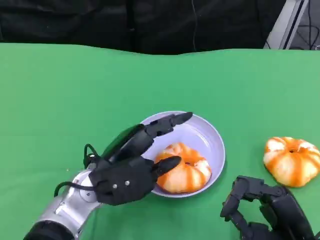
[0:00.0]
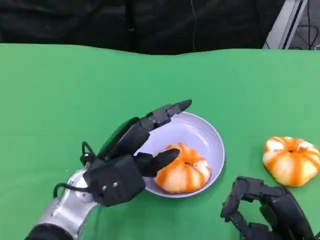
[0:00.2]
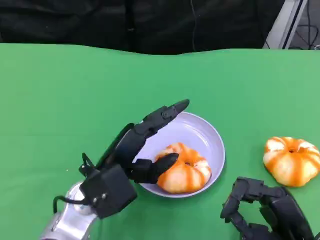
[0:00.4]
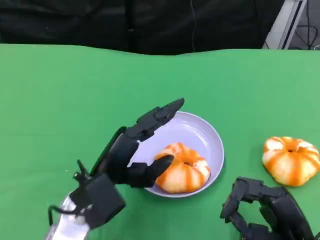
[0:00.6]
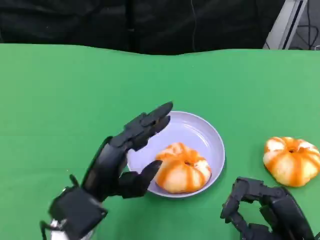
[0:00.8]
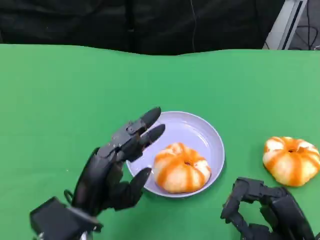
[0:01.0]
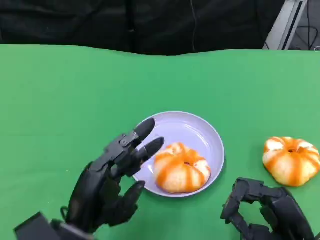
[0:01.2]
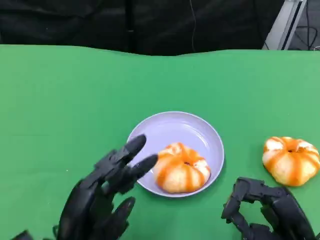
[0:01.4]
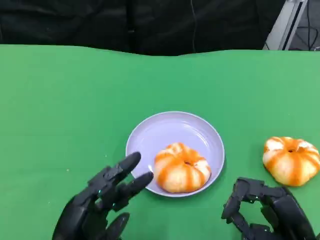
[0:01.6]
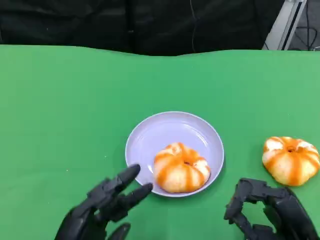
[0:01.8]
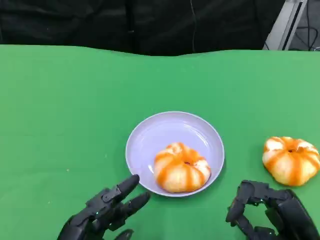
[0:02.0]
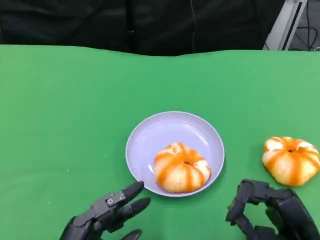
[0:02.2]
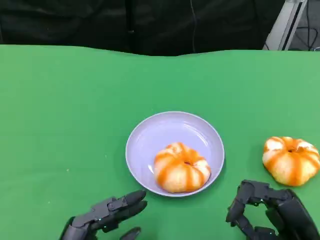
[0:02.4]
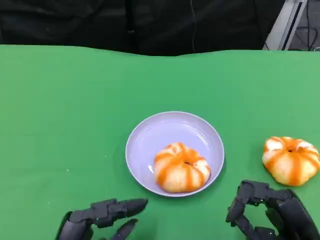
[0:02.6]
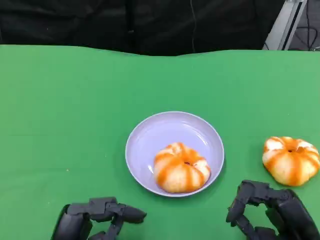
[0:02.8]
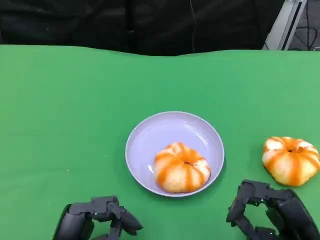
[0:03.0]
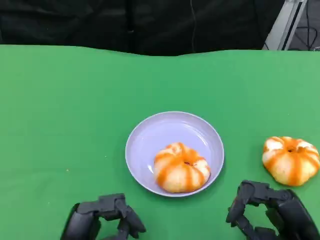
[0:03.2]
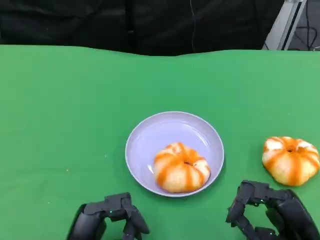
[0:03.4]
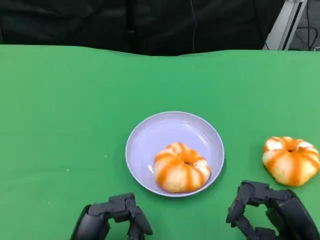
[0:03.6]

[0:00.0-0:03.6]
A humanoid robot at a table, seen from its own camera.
Task of the whole recording: Grasp the bread from the table and place it into the plate.
0:00.0 to 0:01.8: The left hand heads backward and to the left, covering about 15 cm.
0:01.8 to 0:03.6: The hands stay close to where they were, moving slightly.

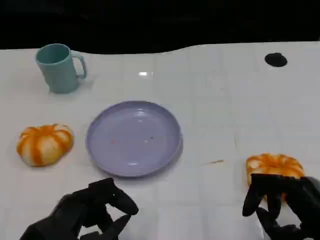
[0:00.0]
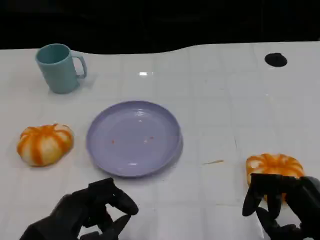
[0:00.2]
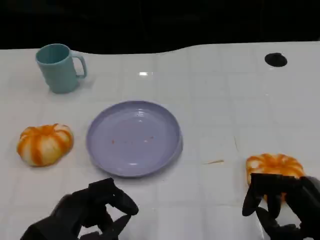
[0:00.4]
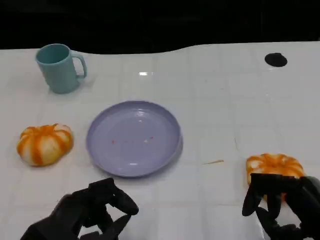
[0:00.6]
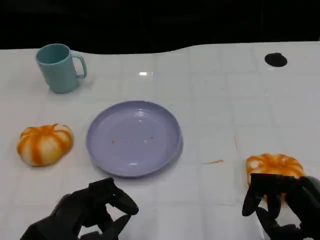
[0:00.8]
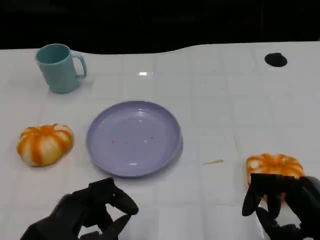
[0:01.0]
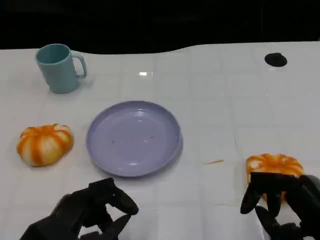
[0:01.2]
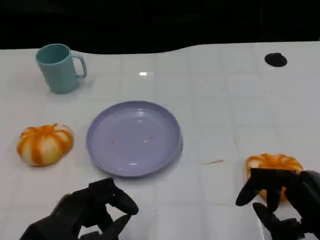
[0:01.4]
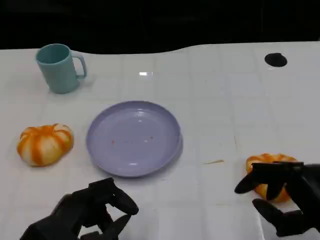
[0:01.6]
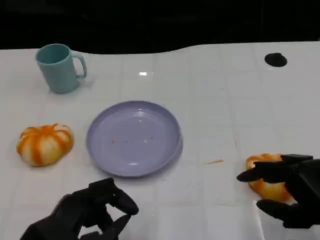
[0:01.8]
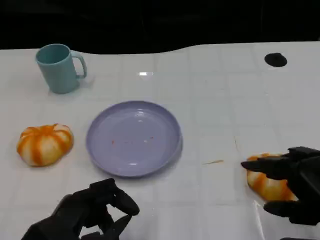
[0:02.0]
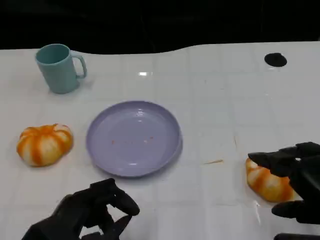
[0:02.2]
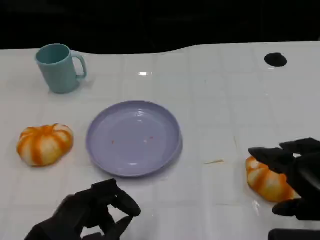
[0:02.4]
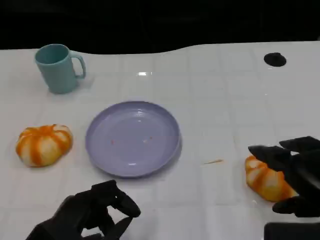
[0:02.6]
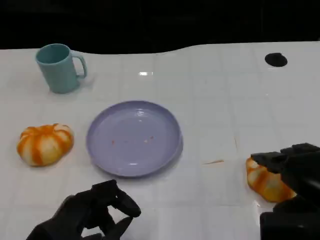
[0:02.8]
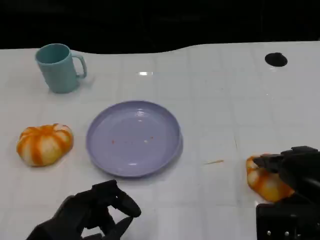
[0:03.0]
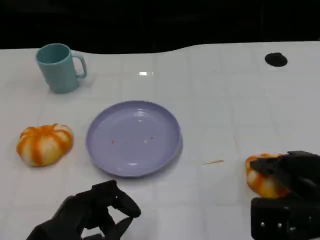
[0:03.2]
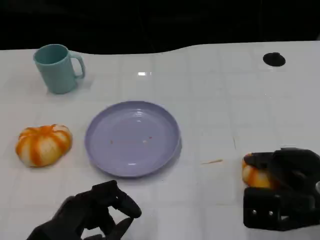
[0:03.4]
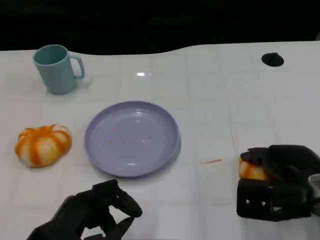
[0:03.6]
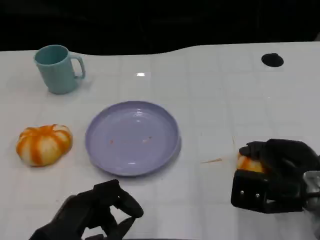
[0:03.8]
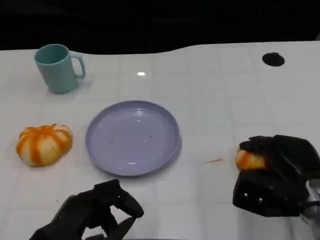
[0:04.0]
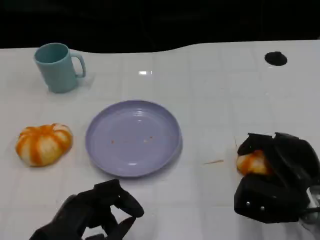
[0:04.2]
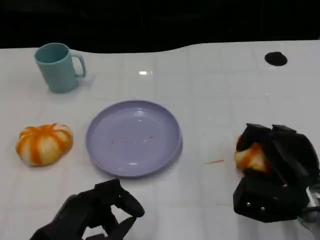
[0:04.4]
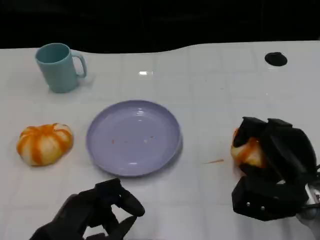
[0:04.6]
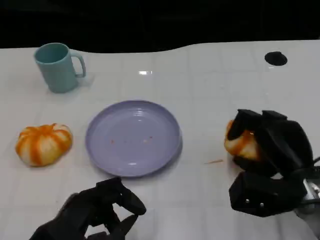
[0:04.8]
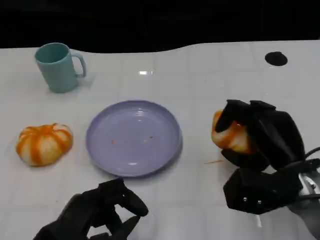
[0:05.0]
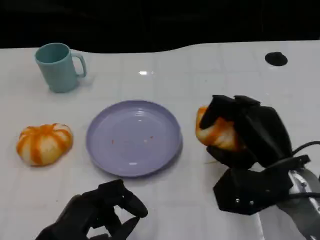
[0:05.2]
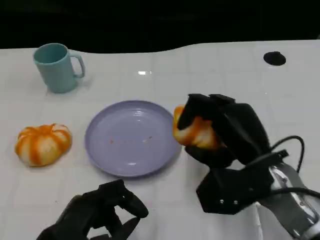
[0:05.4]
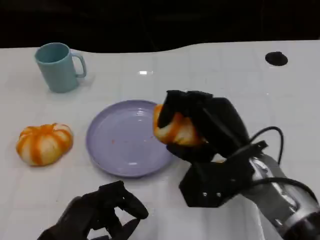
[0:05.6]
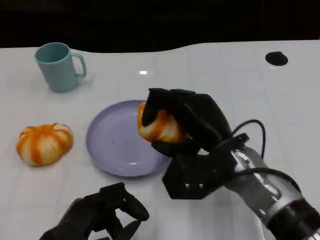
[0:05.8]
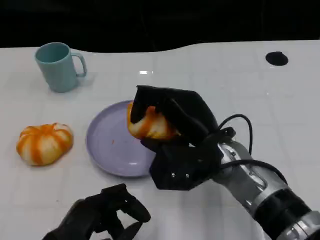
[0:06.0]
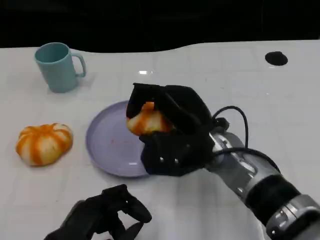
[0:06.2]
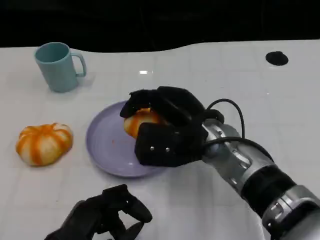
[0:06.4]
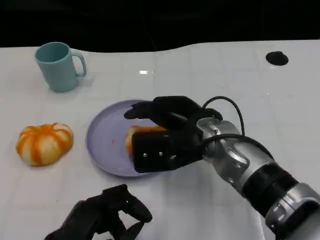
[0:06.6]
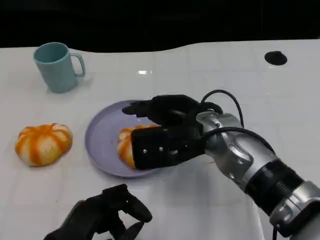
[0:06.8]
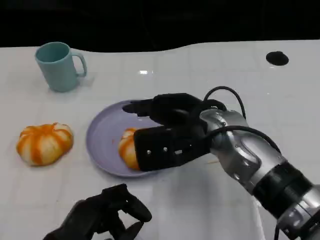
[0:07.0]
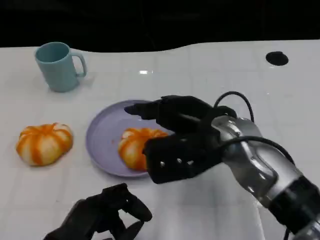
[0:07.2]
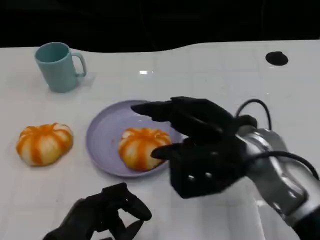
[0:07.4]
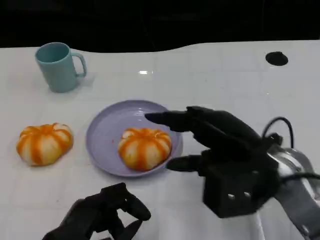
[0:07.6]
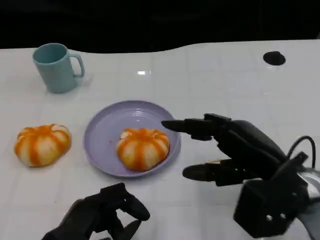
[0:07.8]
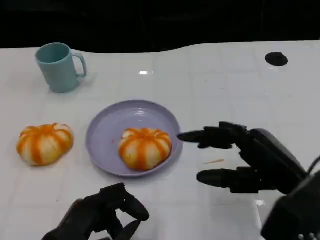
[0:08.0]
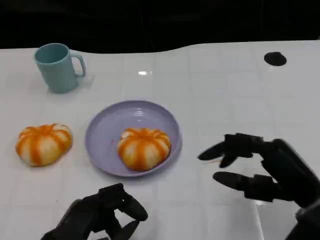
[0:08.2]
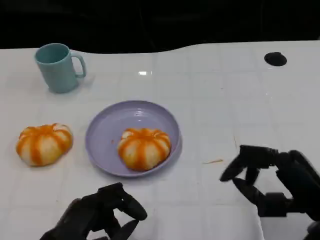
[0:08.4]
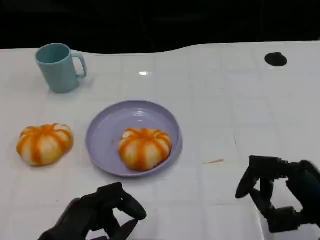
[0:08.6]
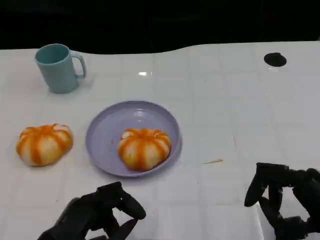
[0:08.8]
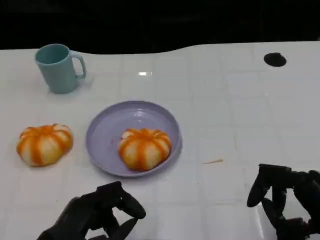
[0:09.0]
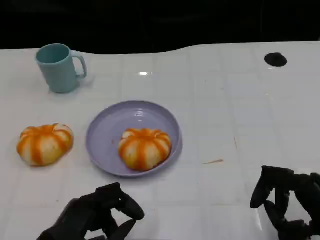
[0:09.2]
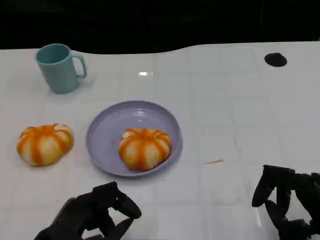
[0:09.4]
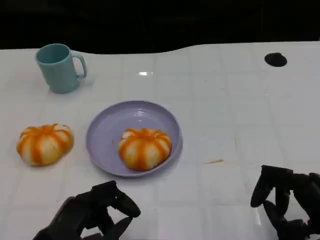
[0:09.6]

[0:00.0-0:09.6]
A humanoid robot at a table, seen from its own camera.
Task of the whole recording: Grasp the bread from the table and place it into the plate.
0:00.0 to 0:01.6: The hands move only a little.
0:01.6 to 0:03.2: The right hand is displaced forward by approximately 5 cm.
0:04.8 to 0:06.4: The right hand heads to the left, covering some 15 cm.
0:06.4 to 0:08.0: The right hand heads to the right and backward, covering about 15 cm.
0:08.0 to 0:09.6: The right hand goes about 5 cm backward.

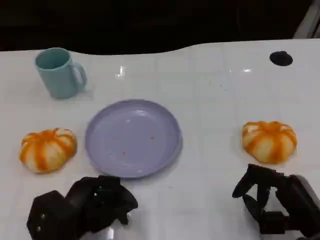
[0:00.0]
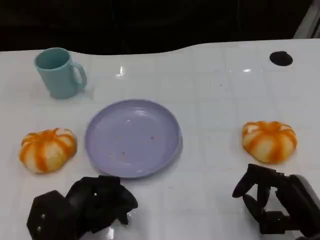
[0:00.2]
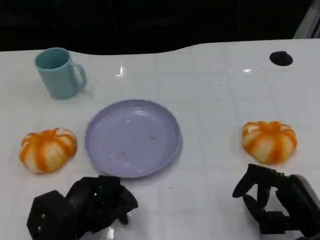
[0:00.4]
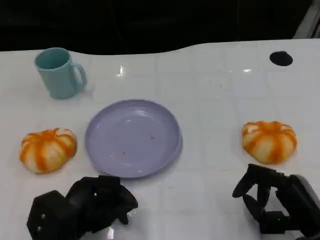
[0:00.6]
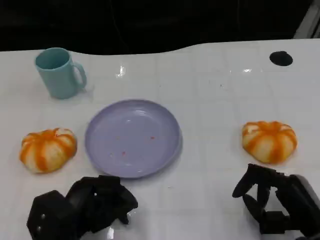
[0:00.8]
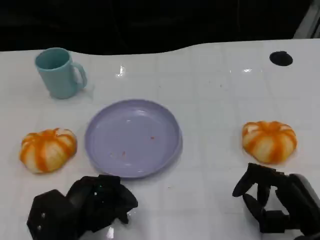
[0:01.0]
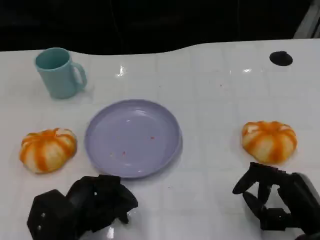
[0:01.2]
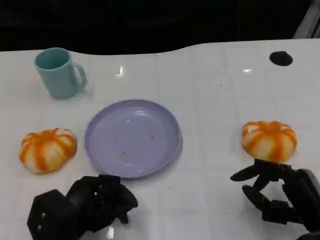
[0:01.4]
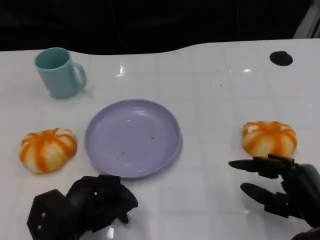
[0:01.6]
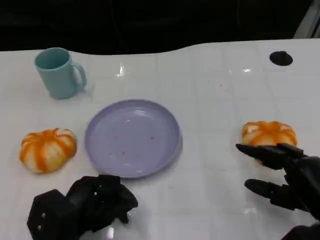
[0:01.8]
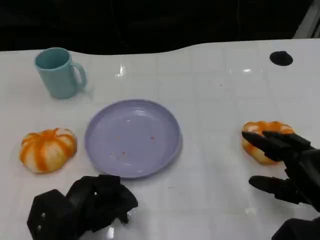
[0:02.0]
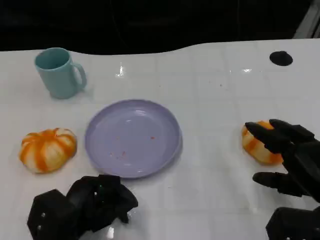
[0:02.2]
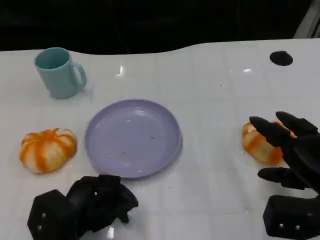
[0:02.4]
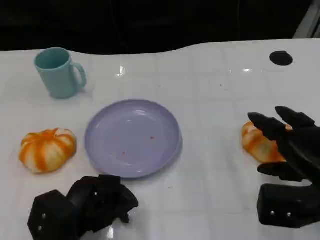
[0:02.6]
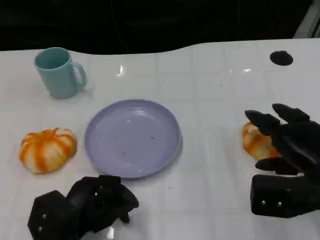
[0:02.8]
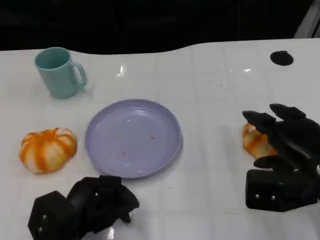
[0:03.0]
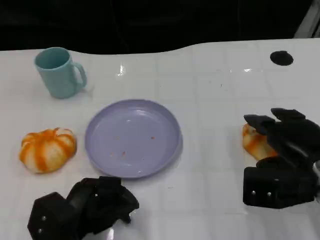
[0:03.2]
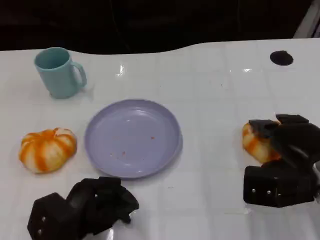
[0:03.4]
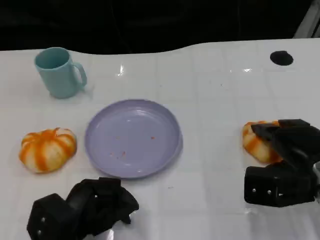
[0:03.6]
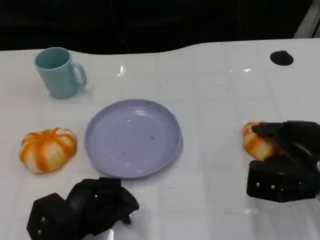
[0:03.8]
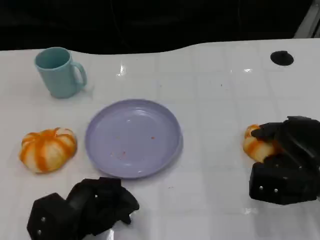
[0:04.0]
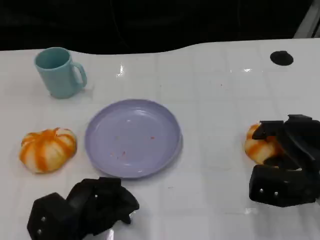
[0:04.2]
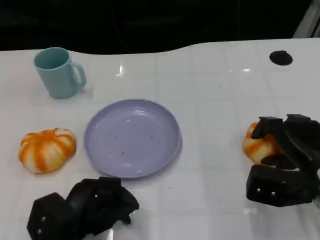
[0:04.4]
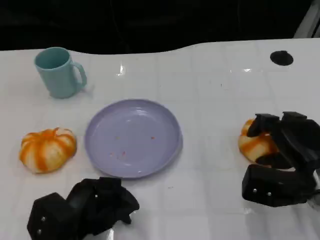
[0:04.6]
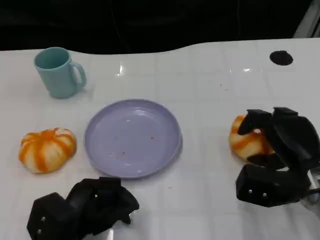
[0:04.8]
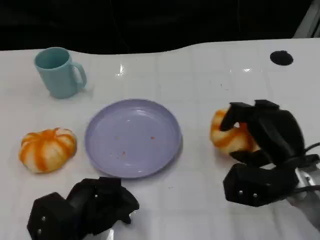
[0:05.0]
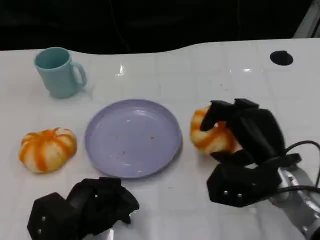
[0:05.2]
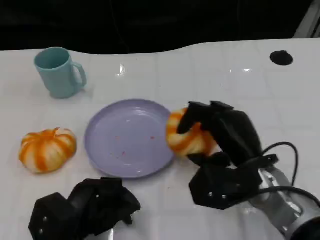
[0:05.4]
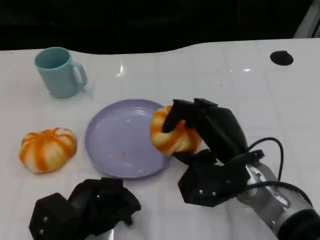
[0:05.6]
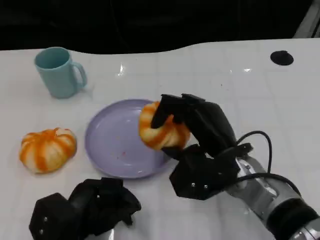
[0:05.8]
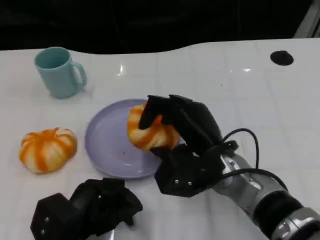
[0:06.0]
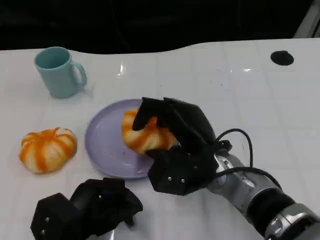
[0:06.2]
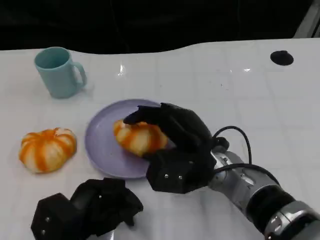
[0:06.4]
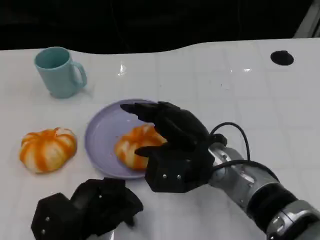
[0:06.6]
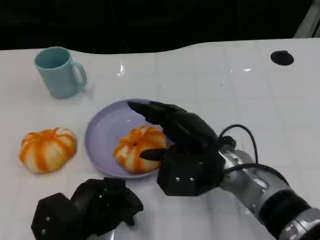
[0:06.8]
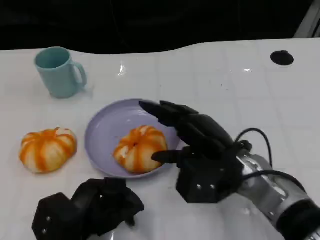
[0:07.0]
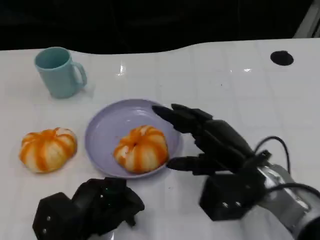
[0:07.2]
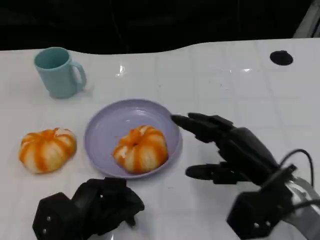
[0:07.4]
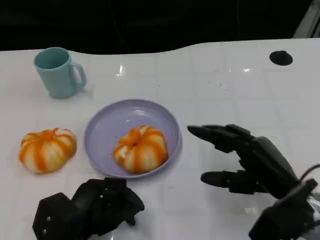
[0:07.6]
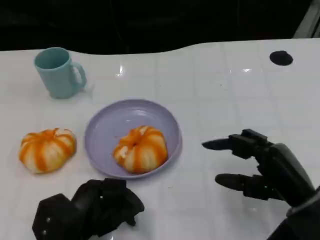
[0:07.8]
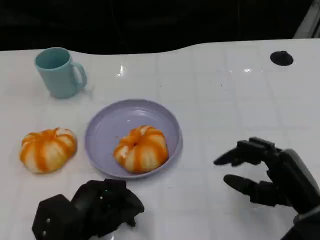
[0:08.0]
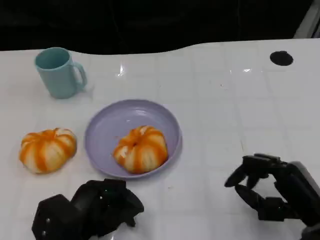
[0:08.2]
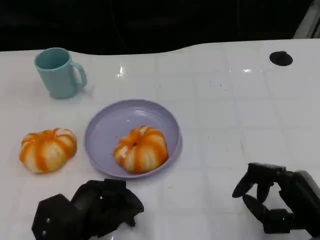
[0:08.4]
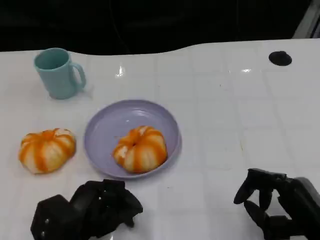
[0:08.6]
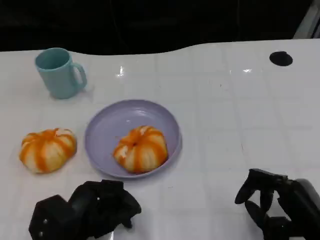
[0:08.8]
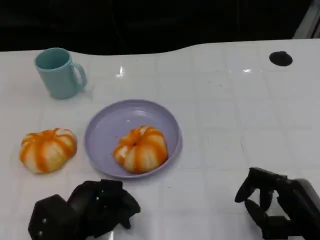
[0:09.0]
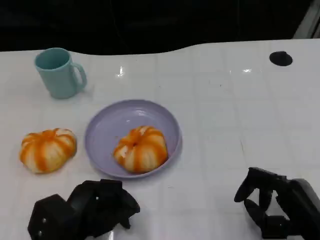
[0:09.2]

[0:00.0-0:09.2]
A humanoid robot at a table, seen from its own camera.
Task of the whole recording: Grasp the bread from the table and place it into the plate.
0:00.0 to 0:01.6: The hands stay close to where they were, moving slightly.
0:01.6 to 0:03.0: The right hand travels forward by approximately 5 cm.
0:03.0 to 0:04.6: There are only small adjustments of the hands.
0:04.6 to 0:06.2: The right hand heads to the left, covering approximately 15 cm.
0:06.2 to 0:07.6: The right hand moves to the right, some 15 cm.
0:07.6 to 0:09.2: The right hand shifts roughly 5 cm backward.
